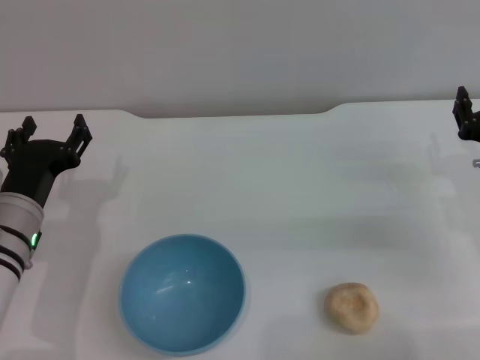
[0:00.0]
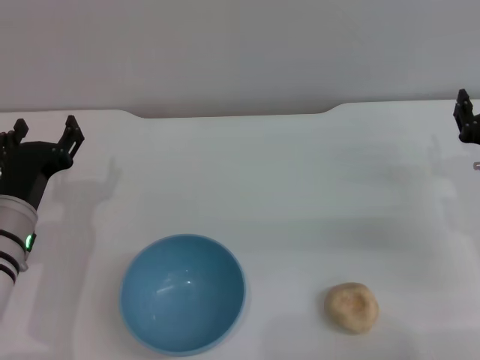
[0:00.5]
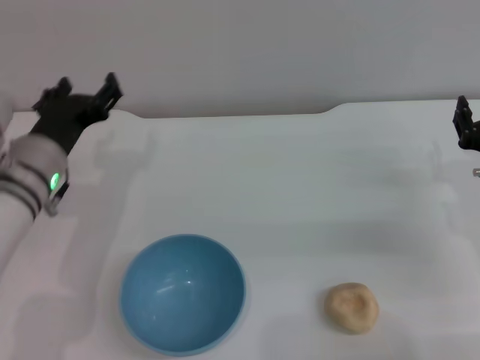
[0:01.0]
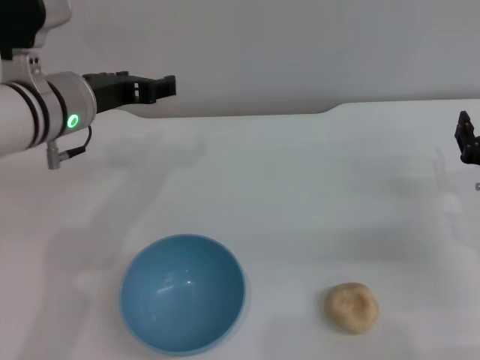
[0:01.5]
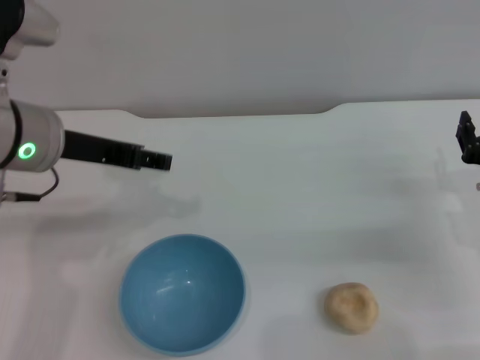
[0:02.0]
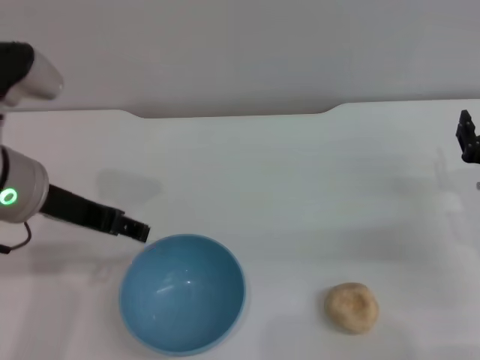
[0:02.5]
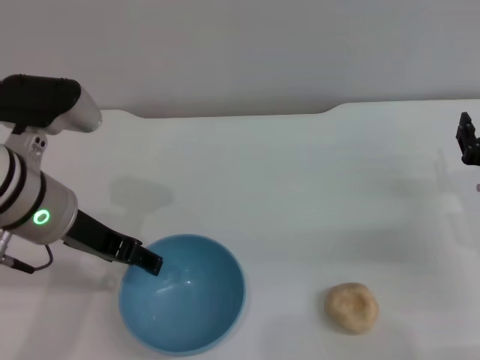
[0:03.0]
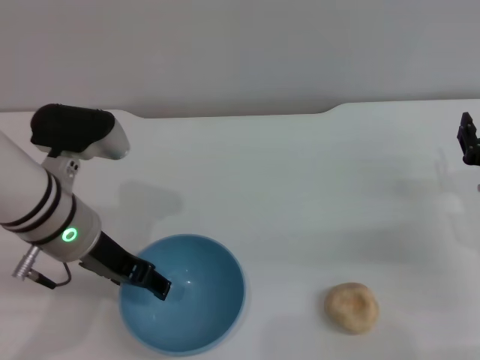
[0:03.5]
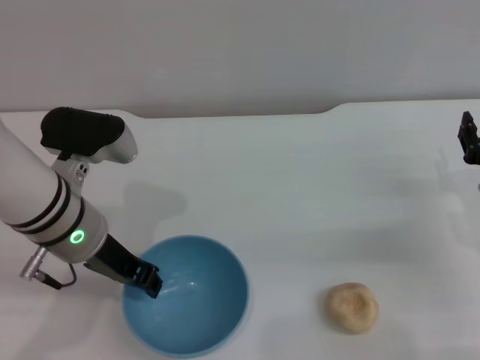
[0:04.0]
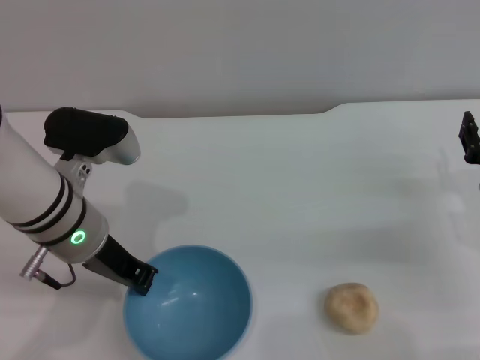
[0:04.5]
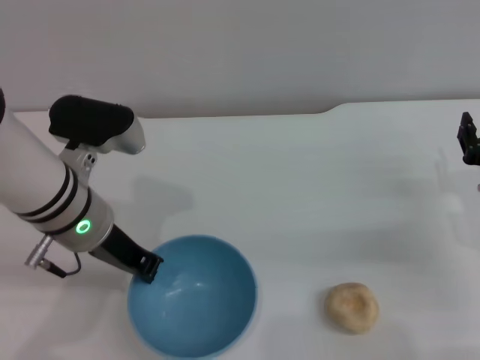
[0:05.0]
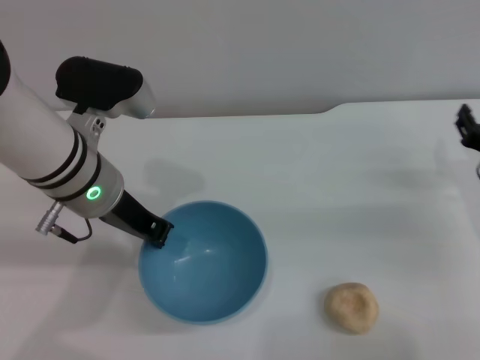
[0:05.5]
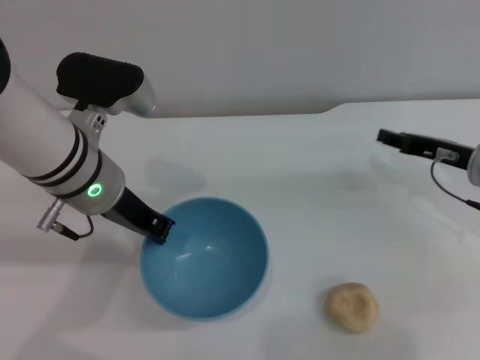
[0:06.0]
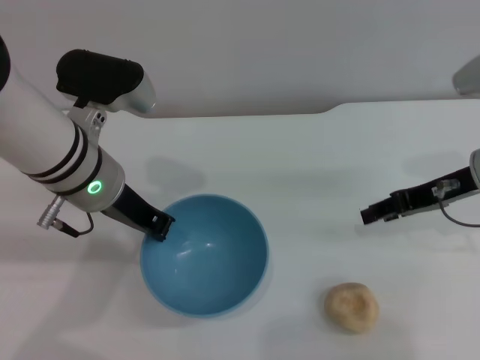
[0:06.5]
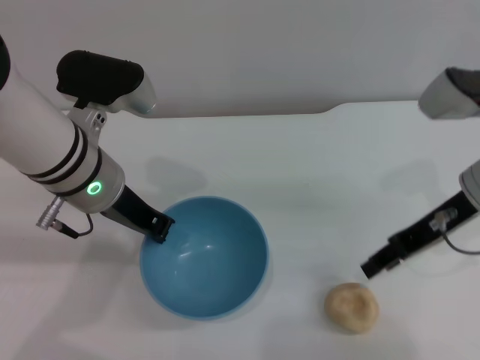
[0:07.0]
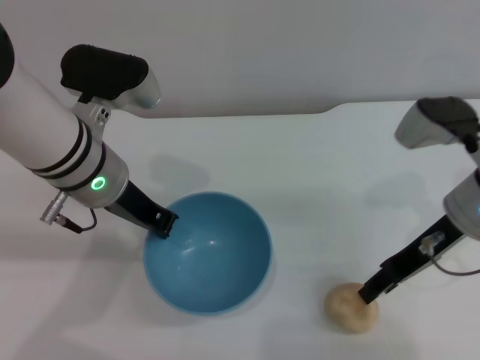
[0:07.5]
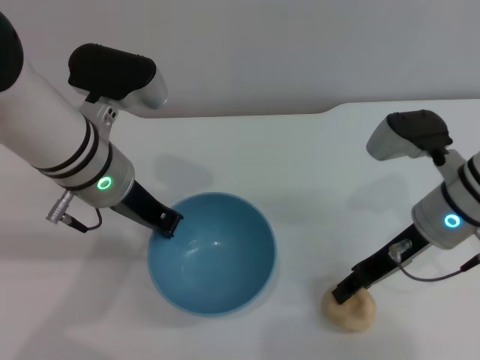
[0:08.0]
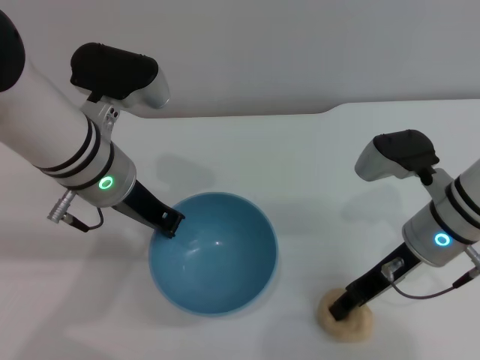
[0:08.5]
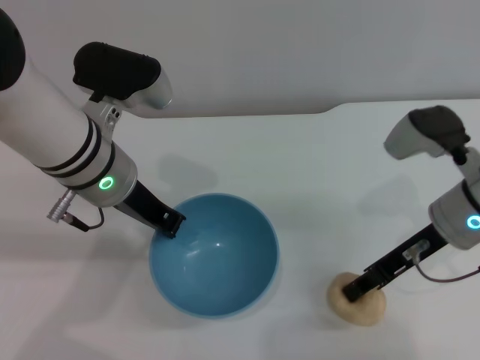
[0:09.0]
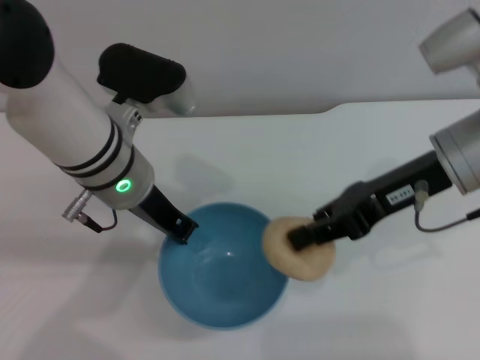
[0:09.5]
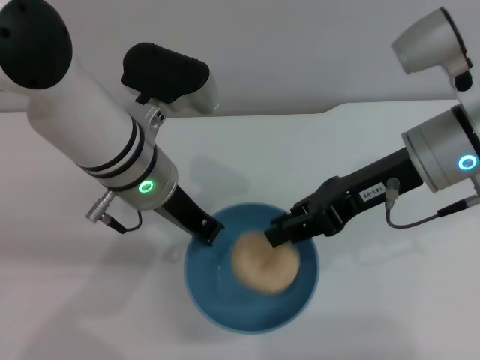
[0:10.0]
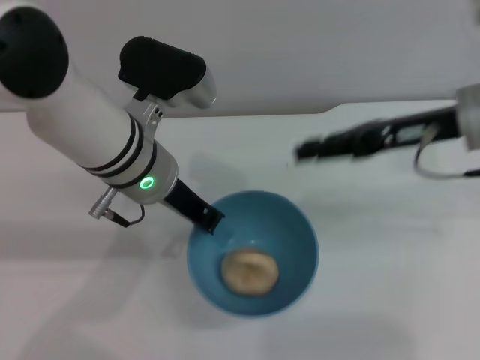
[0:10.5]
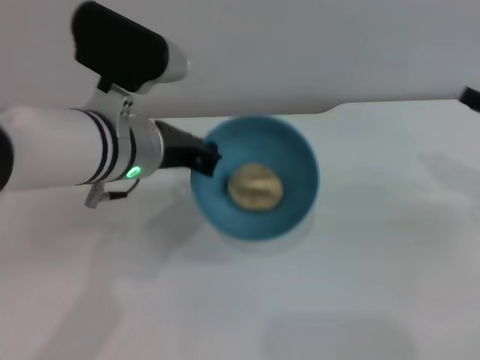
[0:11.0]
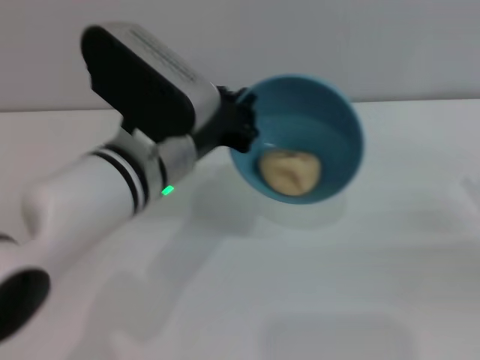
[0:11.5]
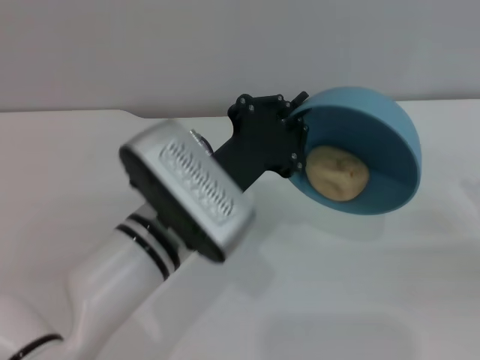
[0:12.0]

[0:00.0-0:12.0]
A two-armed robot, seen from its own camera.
Task of the whole recording: put the egg yolk pastry into the blue bowl and pour it out repeatedly.
Step, 0:00.0 to 0:06.0: Pick up the bowl with the left gripper.
Step, 0:06.5 to 0:09.0: Pick up the egg yolk pastry with the right gripper.
Step, 0:09.5 to 0:11.0: Place the egg yolk pastry into the bowl.
0:00.0 to 0:02.0: The left gripper shifts roughly 15 cm upward.
0:02.0 to 0:04.0: The left gripper moves downward, some 10 cm.
0:04.0 to 0:06.0: The left gripper closes its fingers. The right gripper is displaced forward by approximately 5 cm.
0:06.0 to 0:08.0: The right gripper moves to the left, roughly 10 cm.
0:08.0 to 0:10.0: The right gripper goes roughly 10 cm upward, and closes its fingers.
0:10.0 to 0:12.0: The left gripper is displaced backward by roughly 5 cm. Meanwhile the right gripper moves to the right and downward, some 25 cm, and opens.

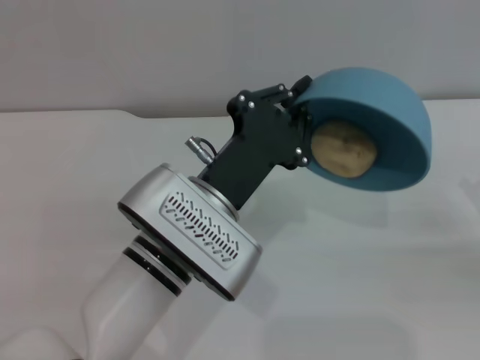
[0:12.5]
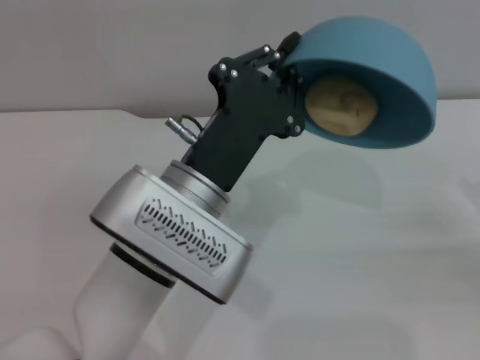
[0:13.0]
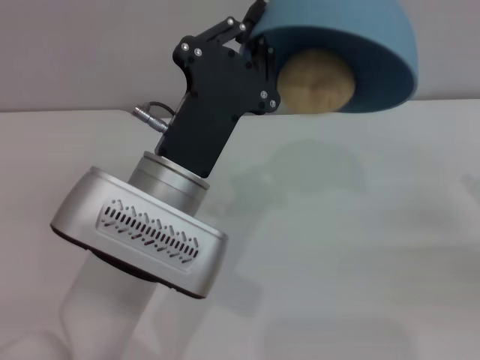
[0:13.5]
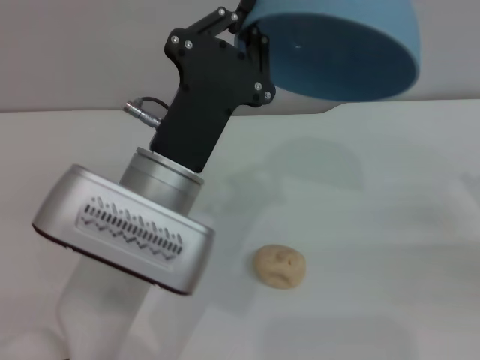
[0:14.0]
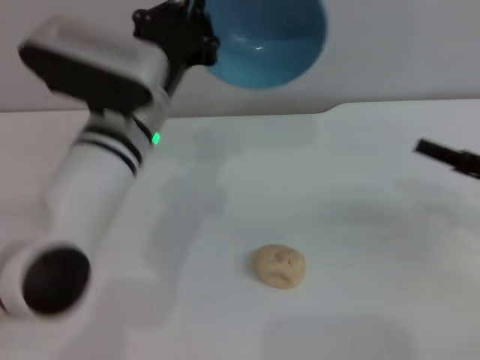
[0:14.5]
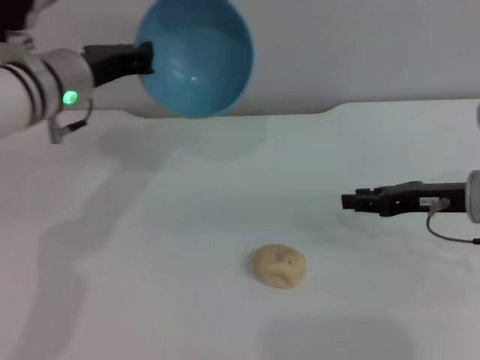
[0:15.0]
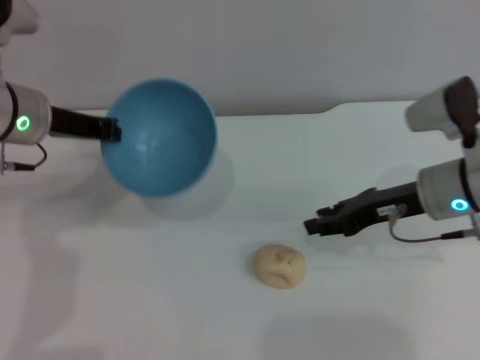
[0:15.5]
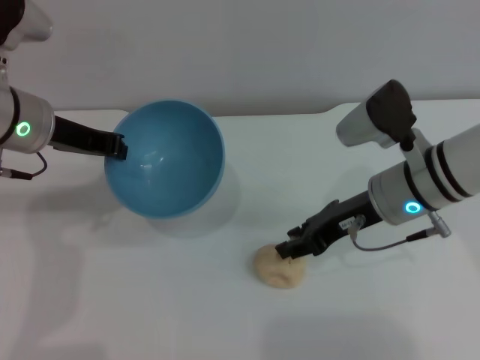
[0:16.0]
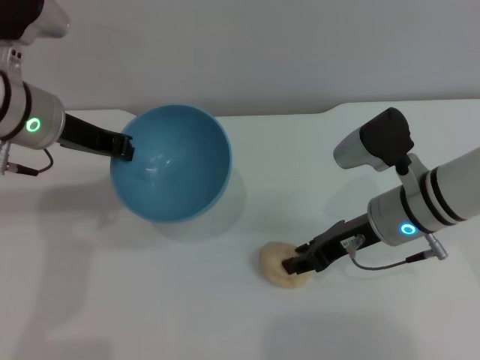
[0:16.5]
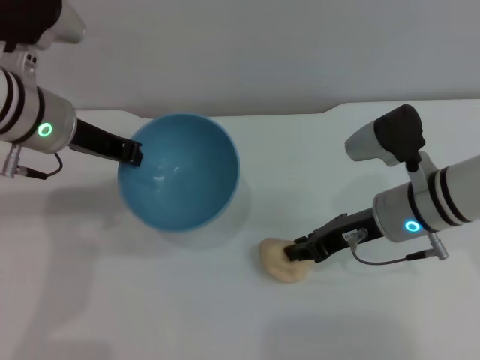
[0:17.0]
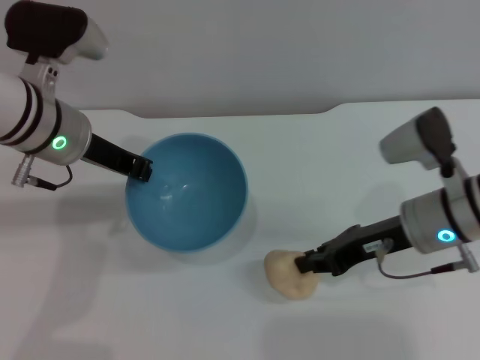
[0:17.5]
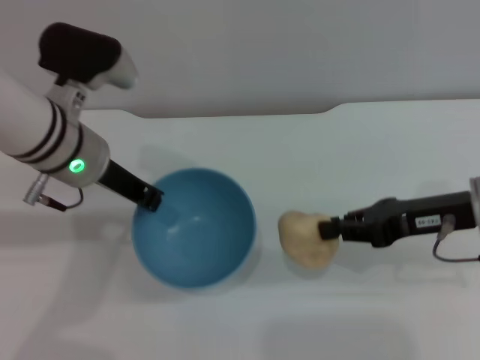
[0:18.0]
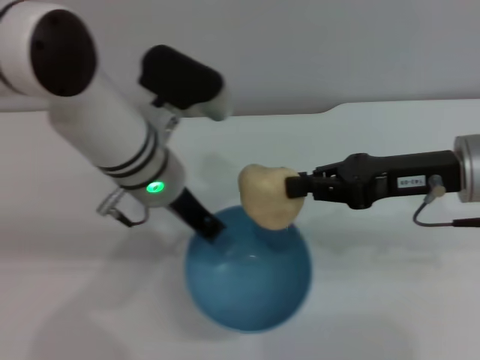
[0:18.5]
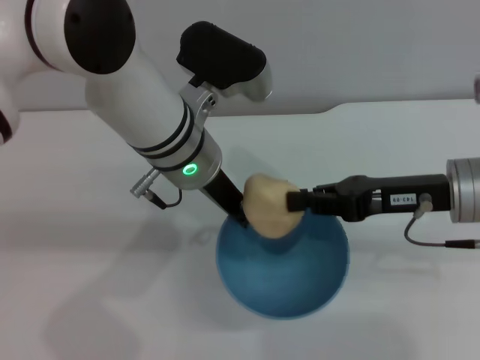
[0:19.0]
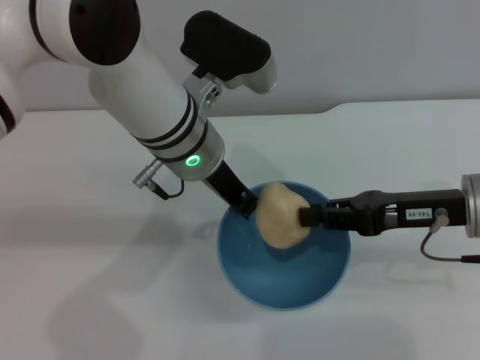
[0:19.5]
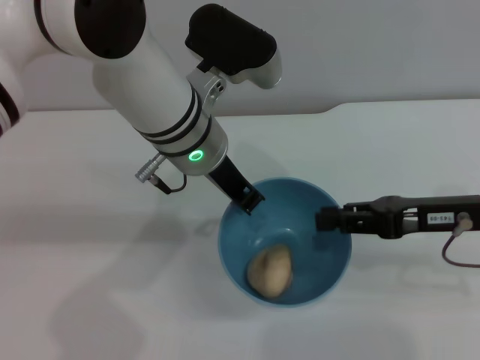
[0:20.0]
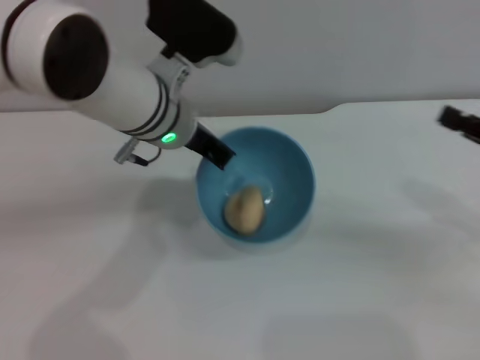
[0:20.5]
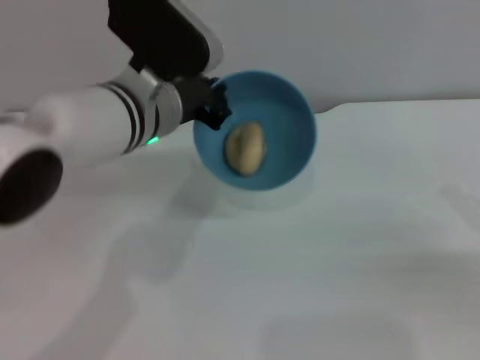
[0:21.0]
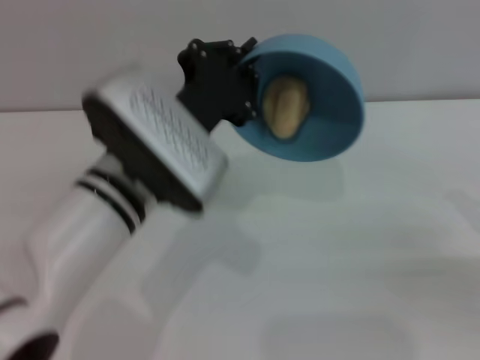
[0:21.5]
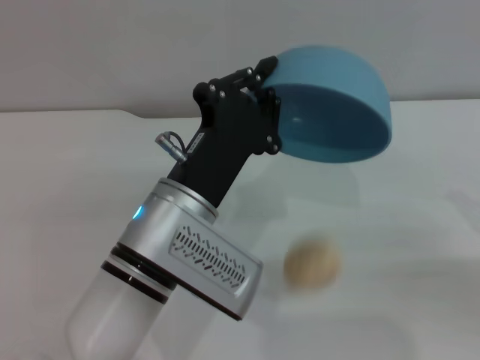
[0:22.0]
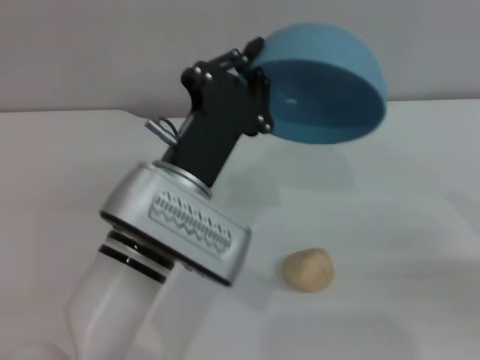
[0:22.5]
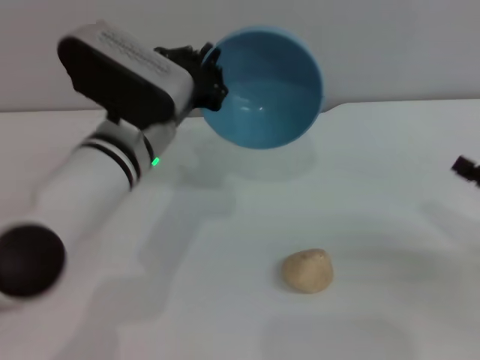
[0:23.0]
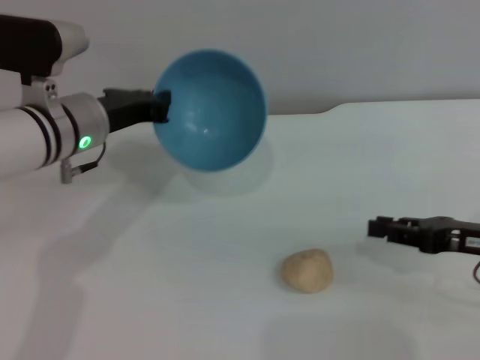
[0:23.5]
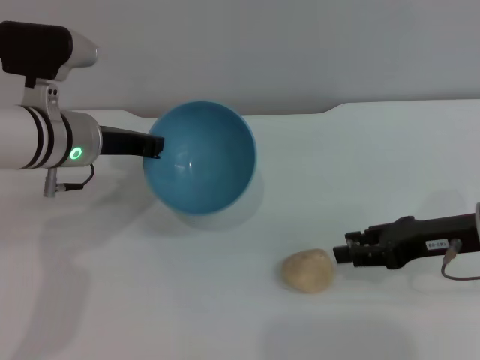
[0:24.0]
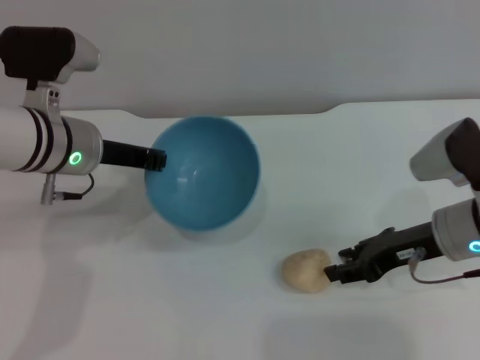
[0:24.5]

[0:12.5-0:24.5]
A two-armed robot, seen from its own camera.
Task of the whole recording: put the egg yolk pastry into the blue bowl and pour it out repeatedly.
Step, 0:12.5 to 0:14.0: Pour the egg yolk pastry out of bowl.
Step, 0:14.5 to 0:17.5: Pick up the egg yolk pastry with the right gripper.
Step, 0:18.0 to 0:19.5: Place the egg yolk pastry into the bowl.
Step, 0:20.0 to 0:22.0: Pour the egg yolk pastry out of bowl.
0:12.5 to 0:14.5: The right gripper ends up some 5 cm from where it was; the left gripper goes approximately 10 cm forward.
0:14.5 to 0:16.5: The left gripper moves to the left, approximately 10 cm. Meanwhile the right gripper shifts approximately 15 cm to the left.
0:16.5 to 0:18.5: The right gripper shifts approximately 10 cm upward and to the right, and closes its fingers. Meanwhile the left gripper travels to the right by about 10 cm.
0:18.5 to 0:20.5: The right gripper moves to the right, roughly 10 cm, and opens up.
0:20.5 to 0:22.5: The left gripper moves backward and downward, roughly 15 cm. The right gripper shifts by about 5 cm.
0:22.5 to 0:24.5: The left gripper moves forward and to the left, roughly 15 cm. The right gripper is displaced to the left and forward by approximately 15 cm, and opens up.

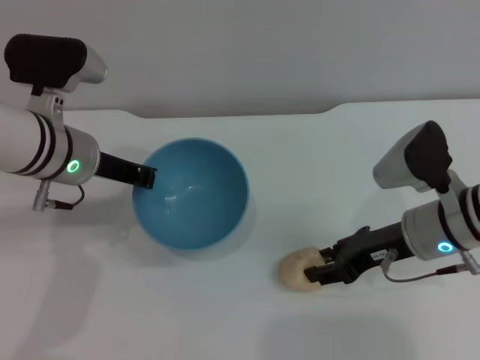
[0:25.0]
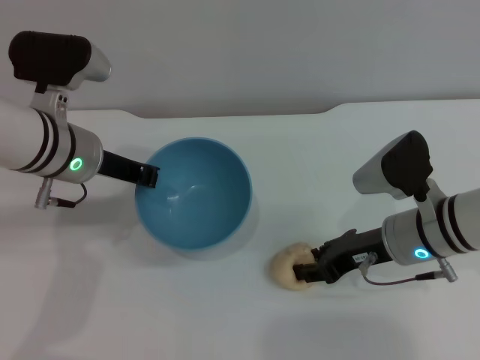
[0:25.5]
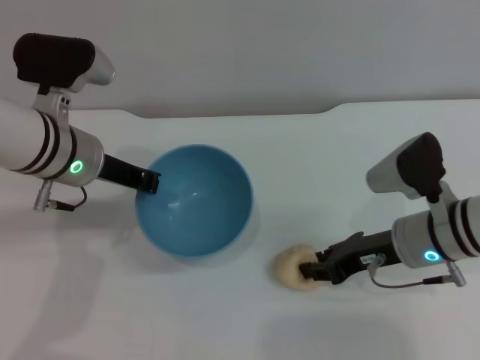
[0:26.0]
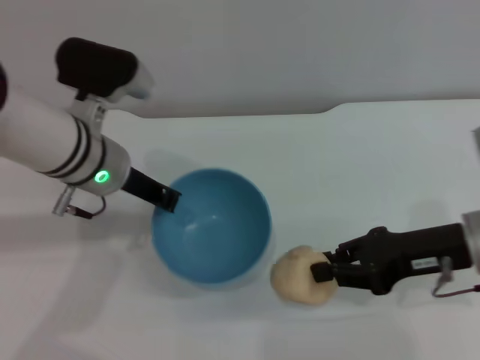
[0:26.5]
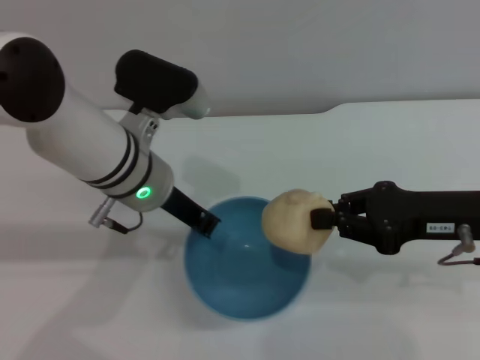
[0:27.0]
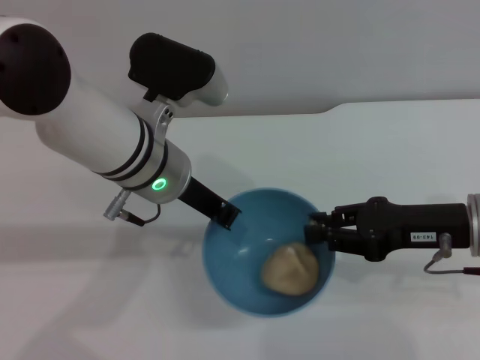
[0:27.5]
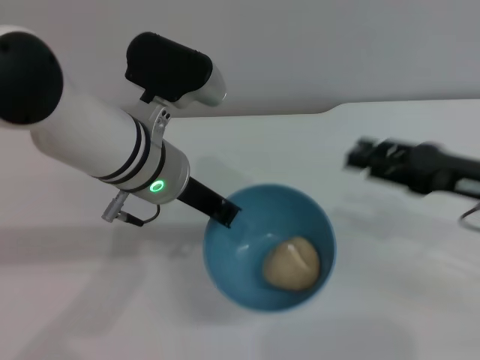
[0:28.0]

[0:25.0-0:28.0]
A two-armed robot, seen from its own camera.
Task of the whole recording: put the egg yolk pastry into the blue bowl and pour it out repeatedly.
Step, 0:27.0 to 0:28.0: Place the egg yolk pastry into the bowl.
0:25.0 to 0:26.5: The right gripper ends up some 5 cm from where it was, and closes its fingers.
0:26.5 to 0:28.0: The left gripper heads to the right, covering some 5 cm. The right gripper opens up.
